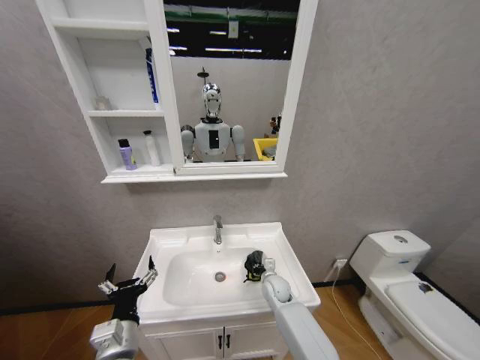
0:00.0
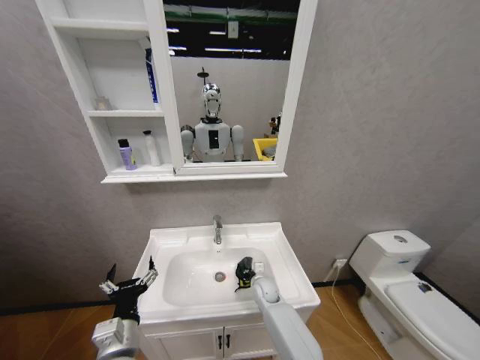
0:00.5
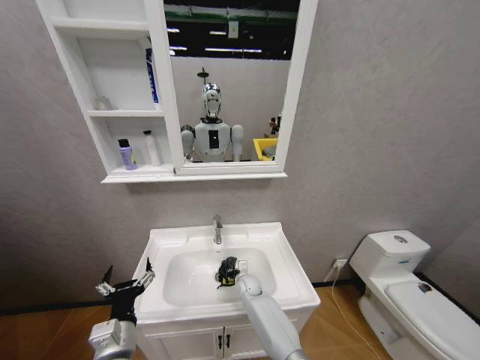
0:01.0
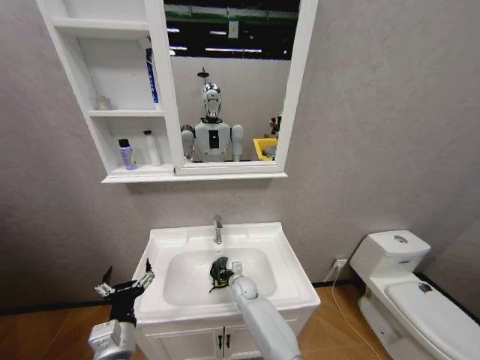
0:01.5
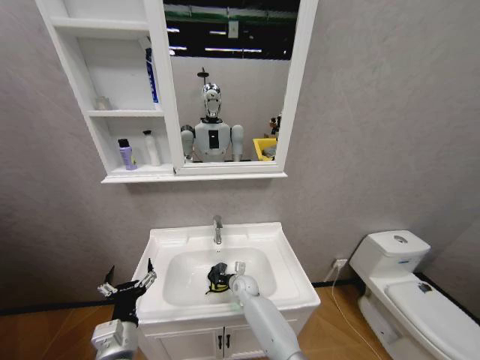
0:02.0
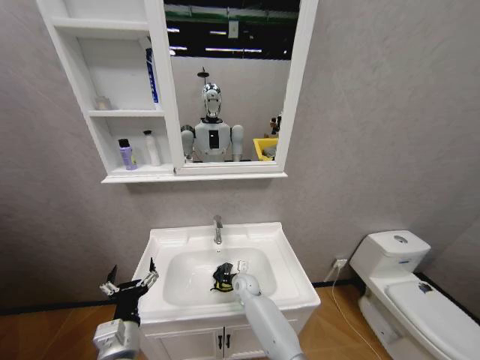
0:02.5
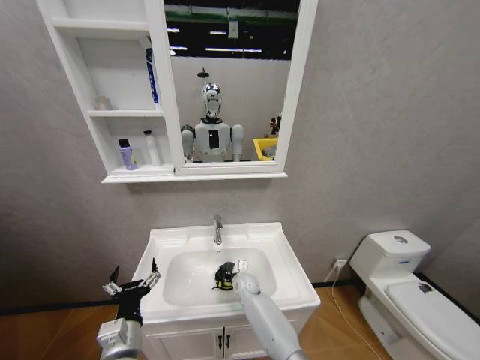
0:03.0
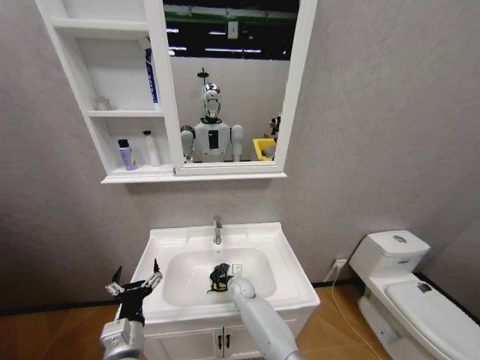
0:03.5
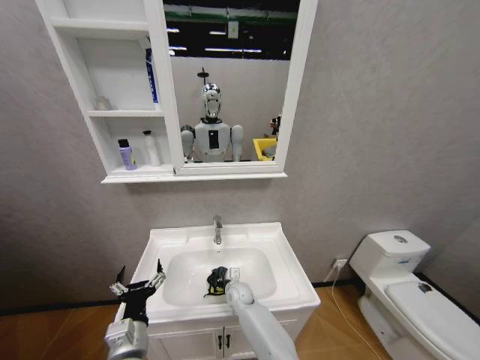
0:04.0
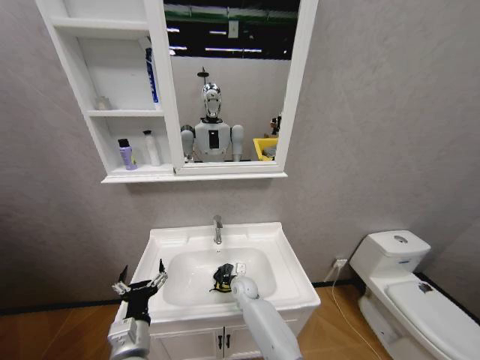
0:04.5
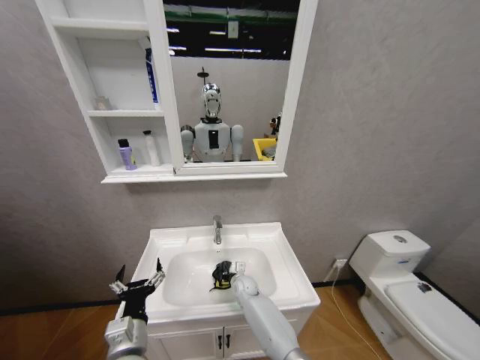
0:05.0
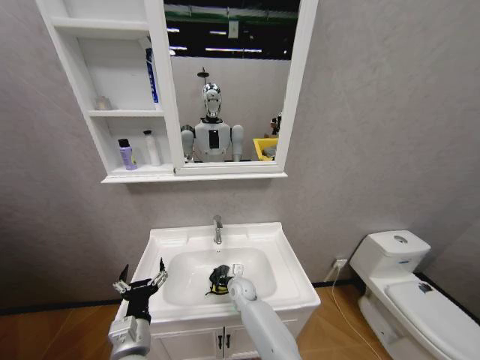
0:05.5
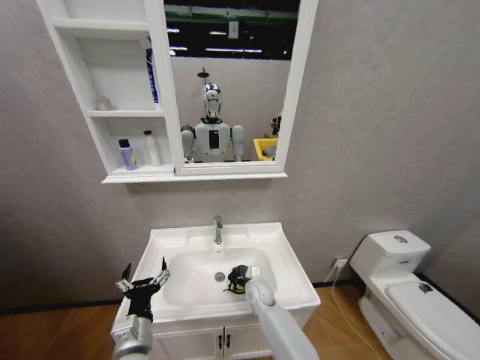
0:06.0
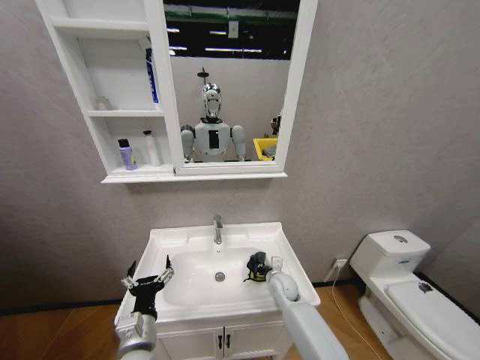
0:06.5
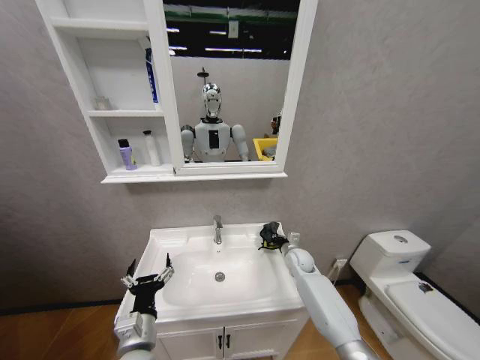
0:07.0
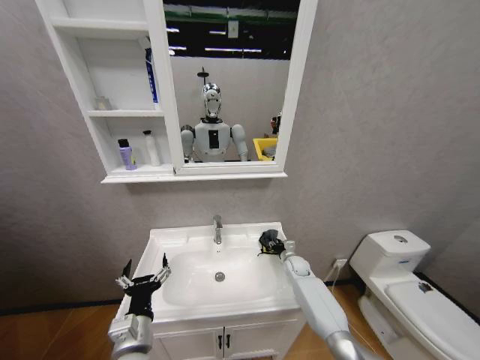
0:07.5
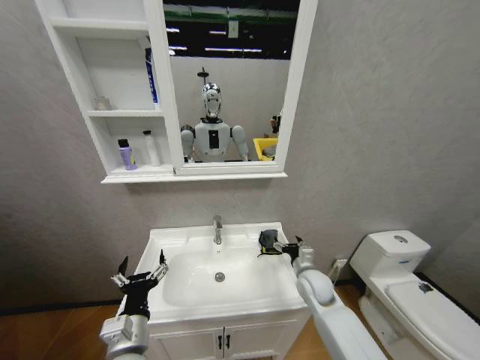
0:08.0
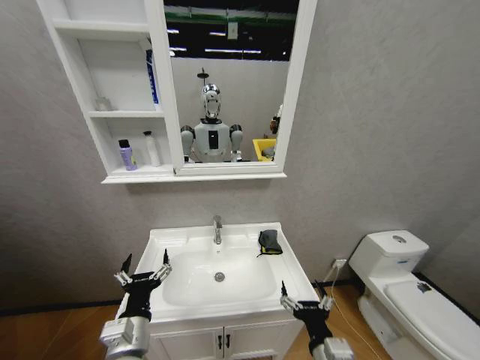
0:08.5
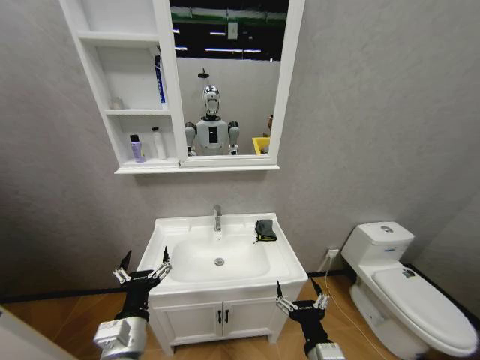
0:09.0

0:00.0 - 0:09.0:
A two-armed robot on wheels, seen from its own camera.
Task of the whole recording: Move facial cleanser and shampoo from washbasin to cabinet, then wipe washbasin with towel.
0:00.0 - 0:02.0: The right gripper travels to the left by about 10 cm.
0:02.0 - 0:04.5: The grippers move only a little.
0:04.5 - 0:07.0: The right gripper goes approximately 25 cm to the right and upward.
0:07.0 - 0:09.0: The right gripper shifts approximately 40 cm backward, and opens up.

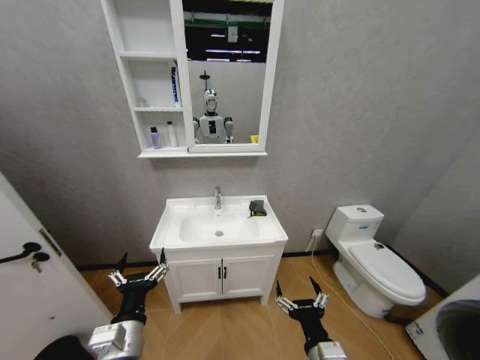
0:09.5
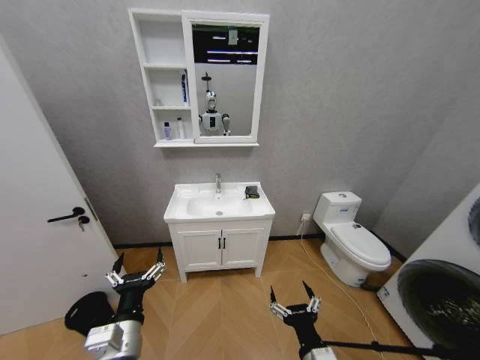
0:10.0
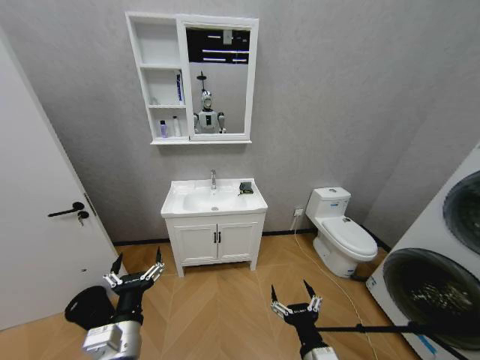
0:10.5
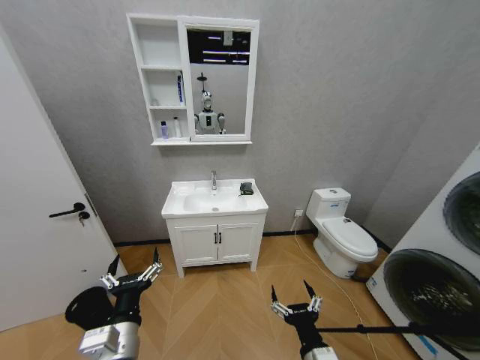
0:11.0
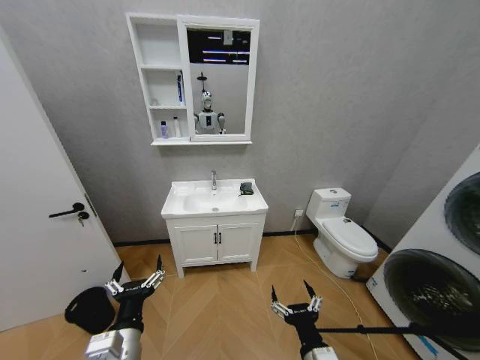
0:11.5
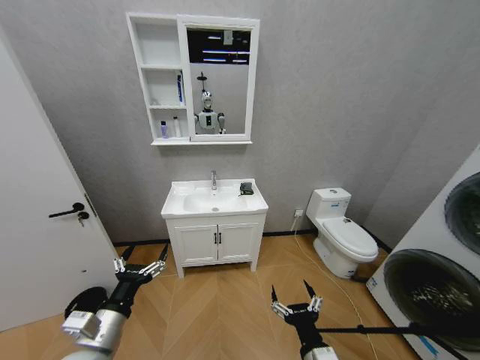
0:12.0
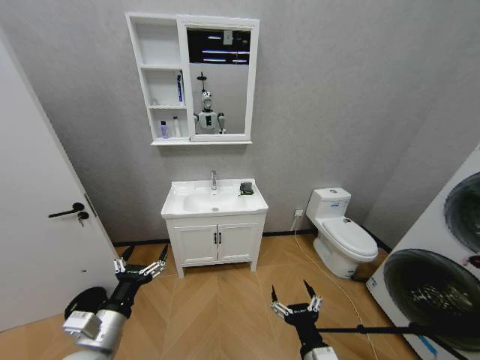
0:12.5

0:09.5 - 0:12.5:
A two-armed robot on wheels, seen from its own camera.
Task of the whole recording: Move facial cleanser and shampoo from washbasin to cabinet, then wipe washbasin with towel.
0:11.0 - 0:12.5: The left gripper travels to the left by some 5 cm.
